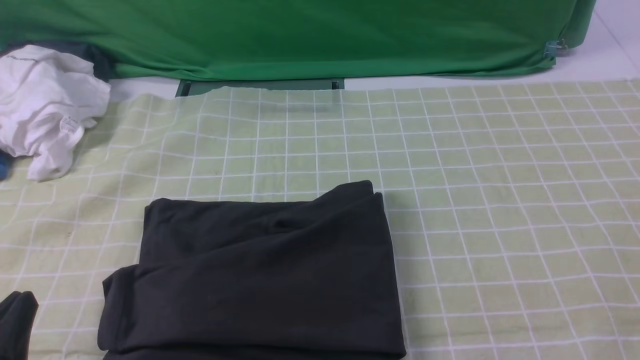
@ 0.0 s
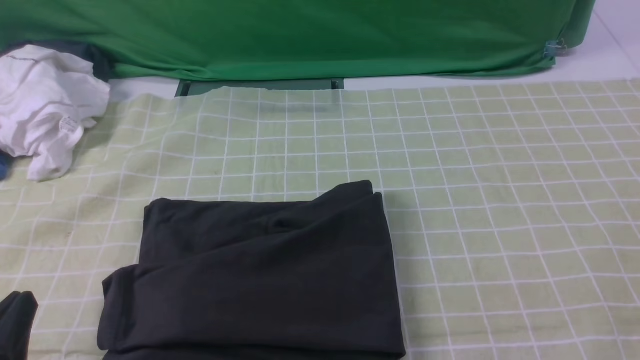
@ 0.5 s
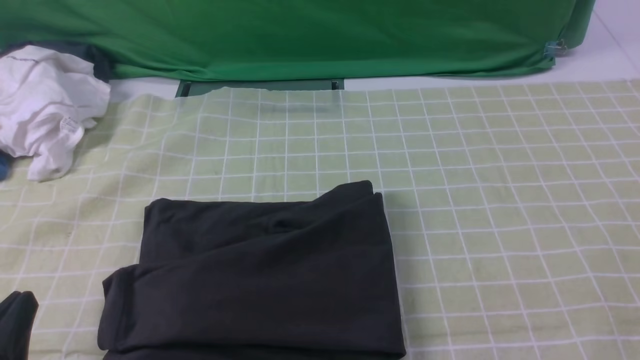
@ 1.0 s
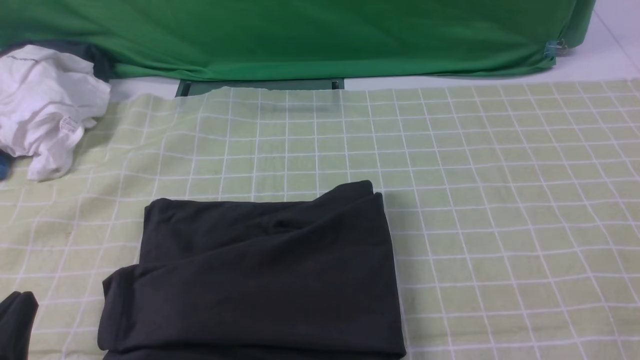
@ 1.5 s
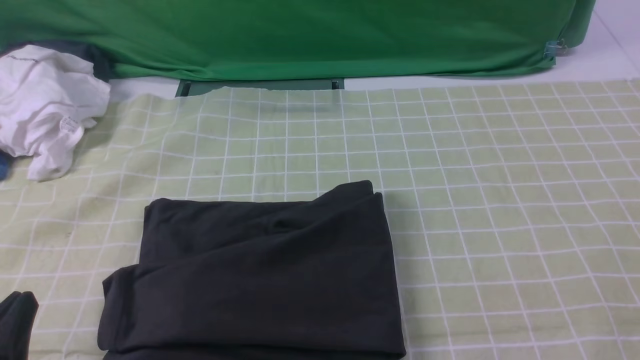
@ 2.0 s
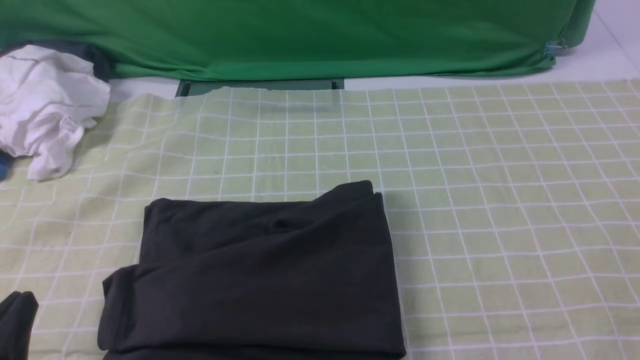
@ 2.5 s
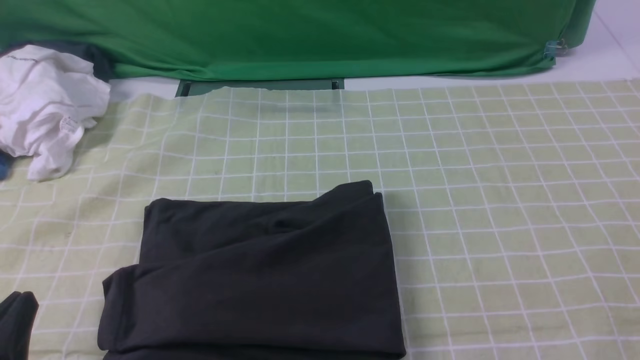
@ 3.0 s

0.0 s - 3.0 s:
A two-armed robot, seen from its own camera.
1.5 s - 3.0 s: Neither gripper changes place.
